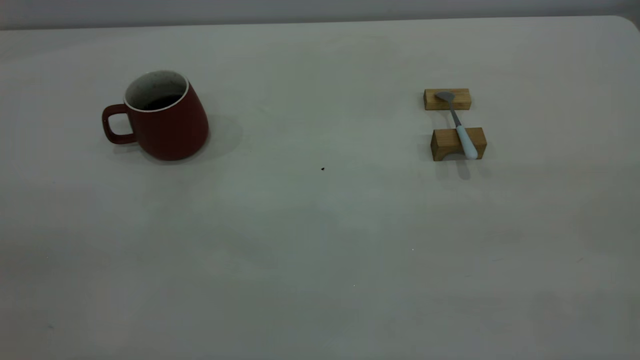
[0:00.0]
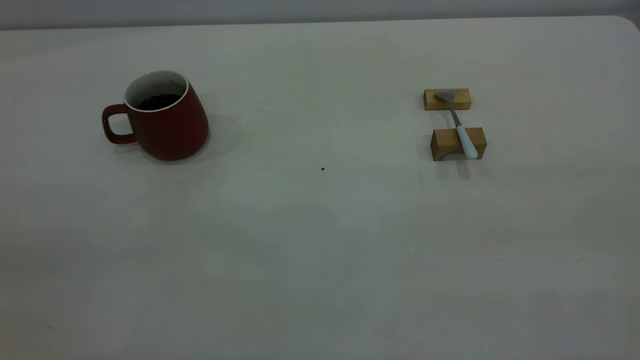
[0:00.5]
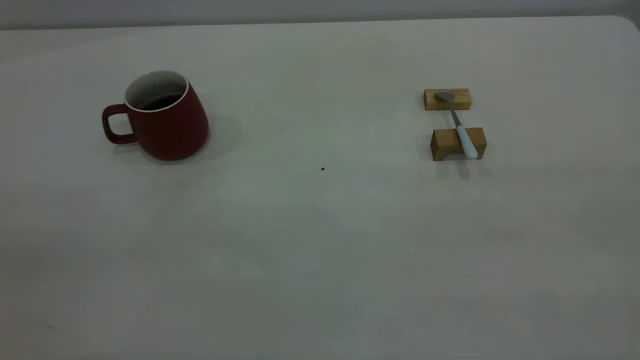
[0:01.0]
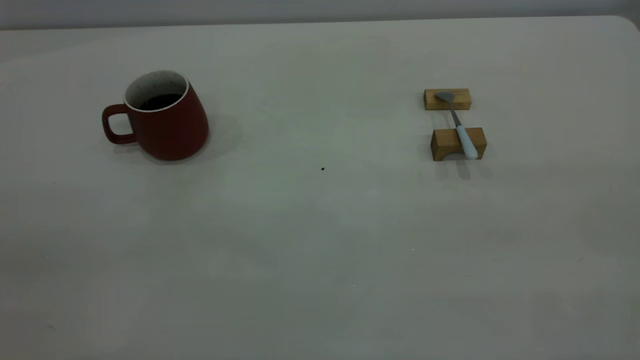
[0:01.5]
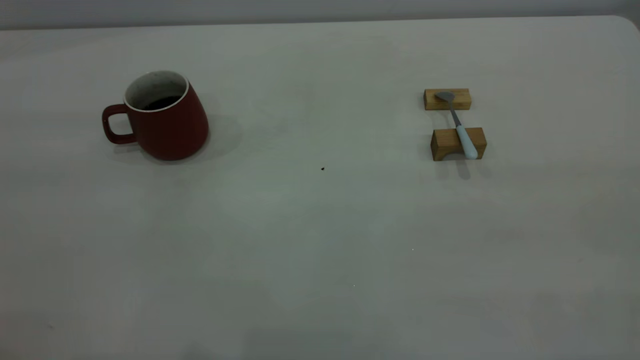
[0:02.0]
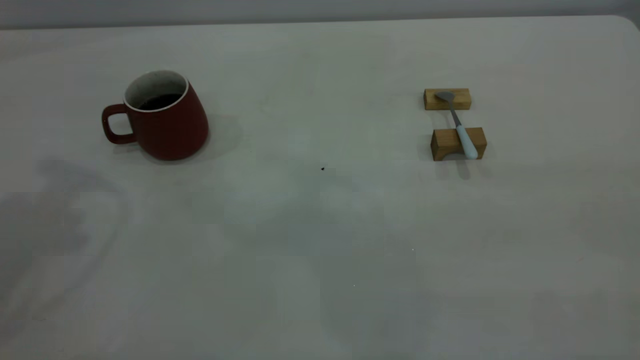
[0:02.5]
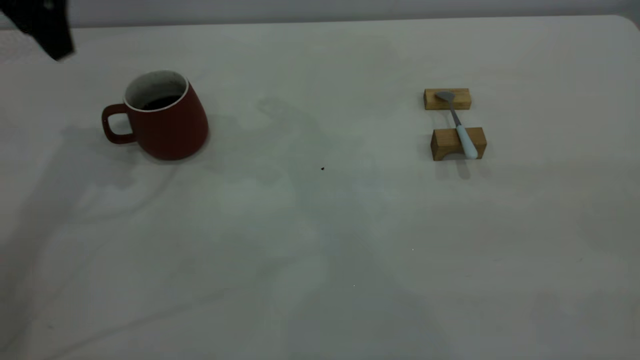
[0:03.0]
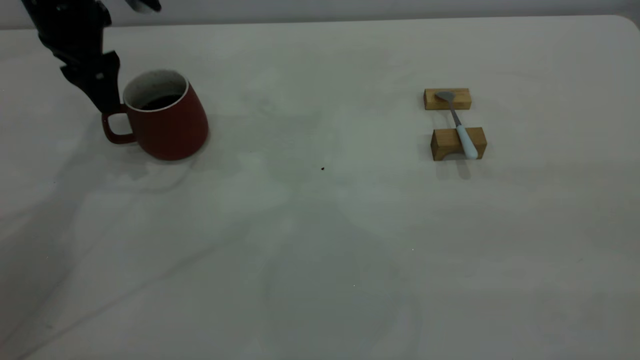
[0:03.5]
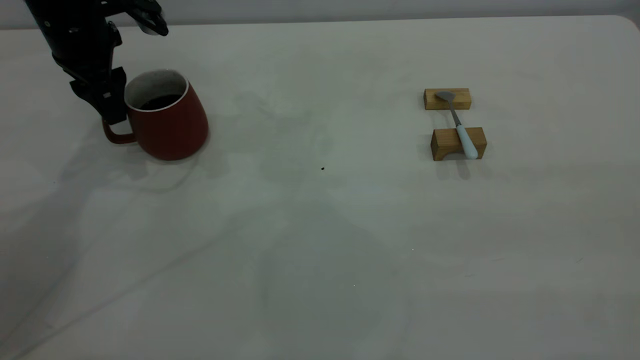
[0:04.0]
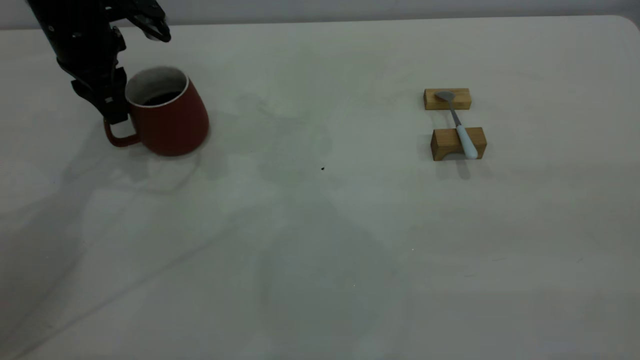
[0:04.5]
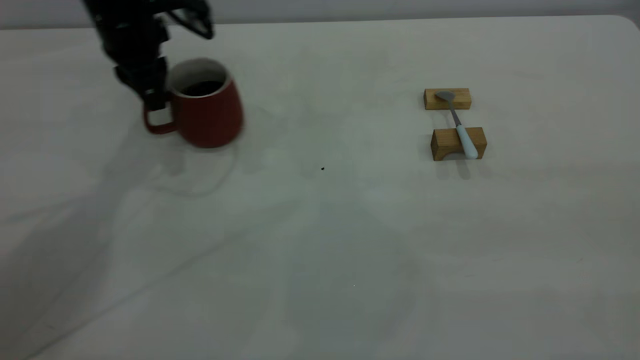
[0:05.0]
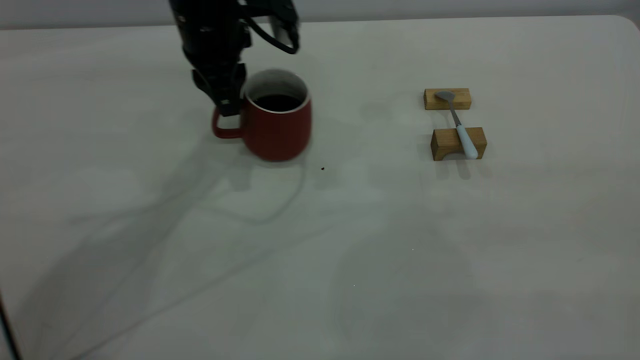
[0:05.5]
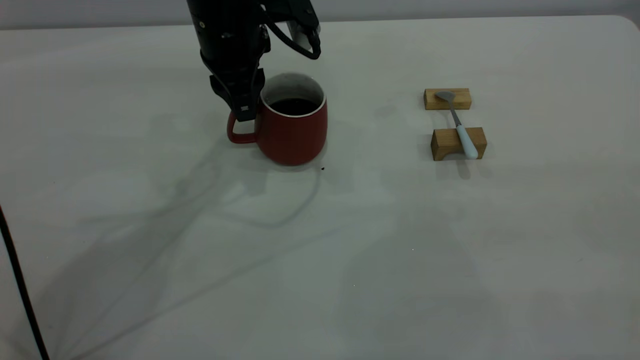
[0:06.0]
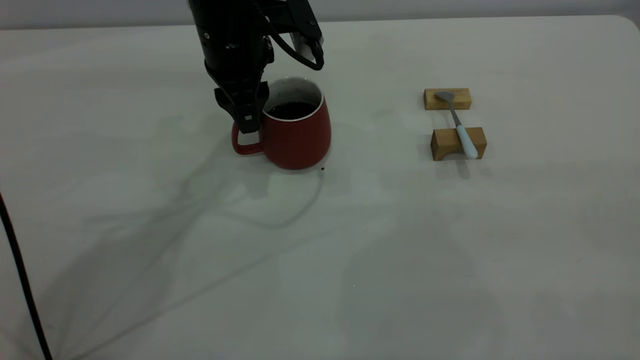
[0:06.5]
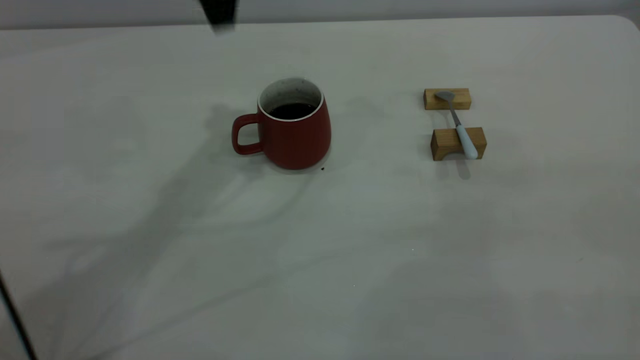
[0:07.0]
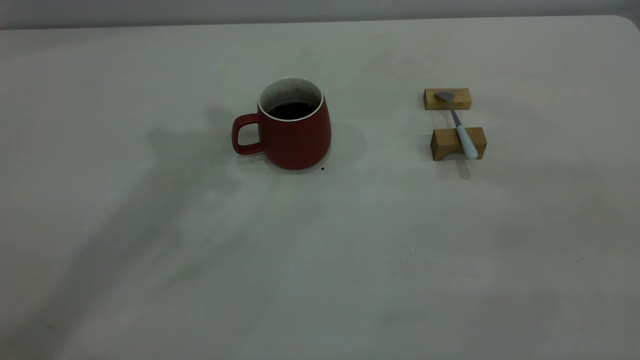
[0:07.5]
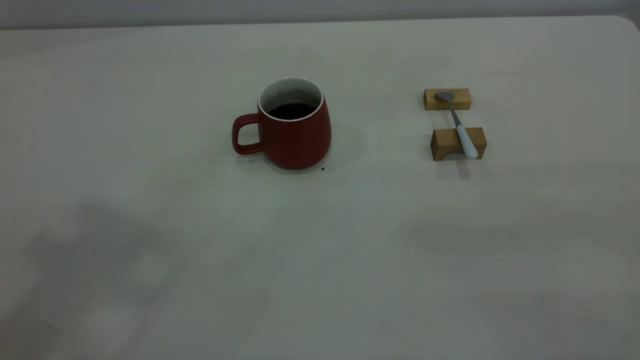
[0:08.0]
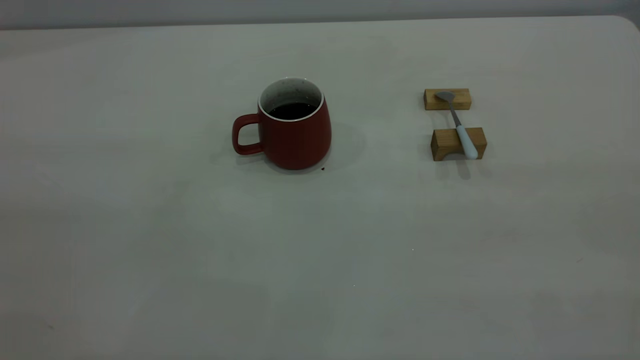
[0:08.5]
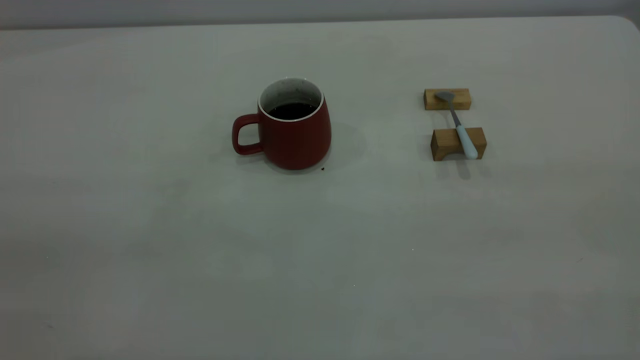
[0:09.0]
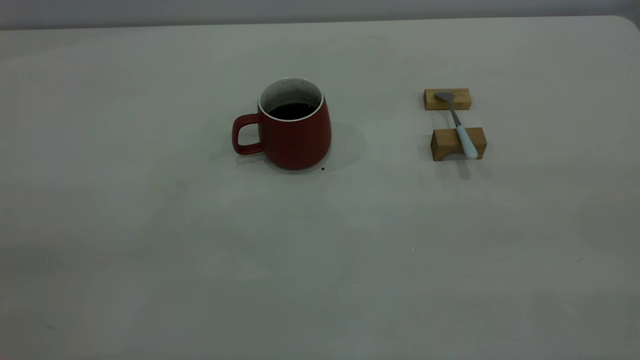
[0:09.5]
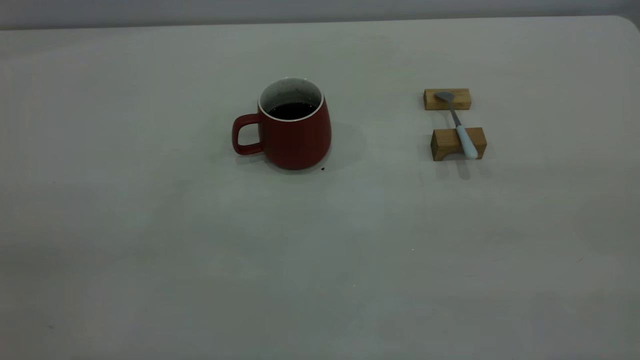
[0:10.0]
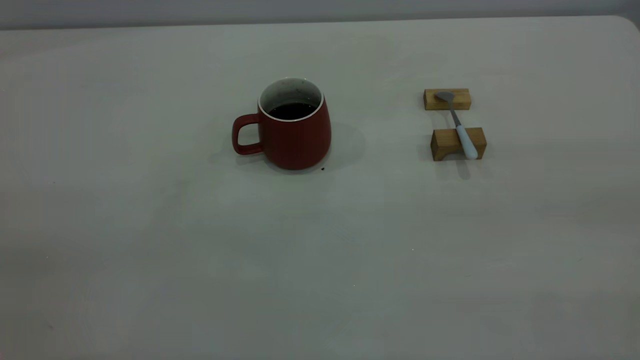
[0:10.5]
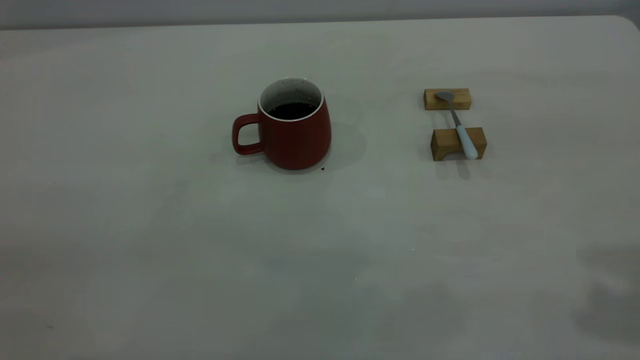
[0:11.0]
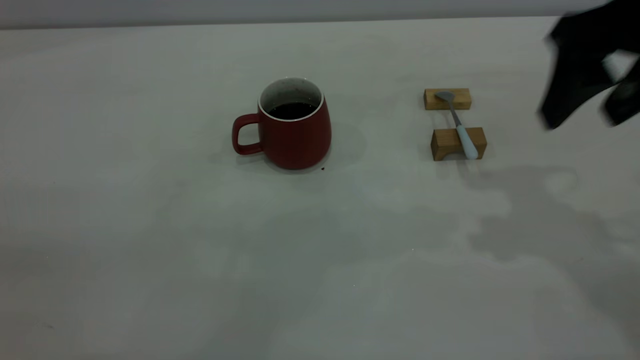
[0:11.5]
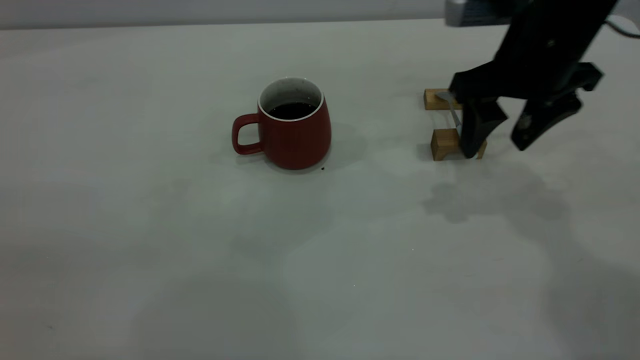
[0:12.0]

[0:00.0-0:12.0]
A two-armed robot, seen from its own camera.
Step, 0:00.0 to 0:06.5: Move the cup with coffee to the center of view.
0:02.0 to 0:04.0: The left gripper goes approximately 40 cm forward and downward.
0:04.0 to 0:06.0: The left gripper heads to the right, covering roughly 15 cm, and closes.
0:06.0 to 0:08.0: The left gripper goes approximately 40 cm upward and backward, and opens, then closes once more.
0:10.0 to 0:12.0: The right gripper moves forward and downward, roughly 40 cm.

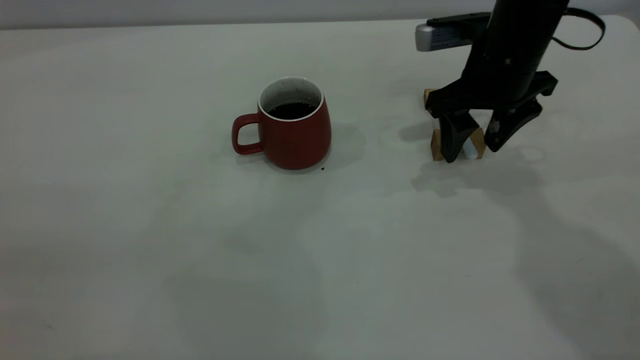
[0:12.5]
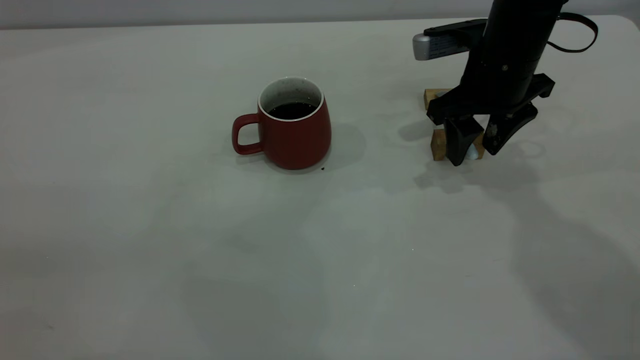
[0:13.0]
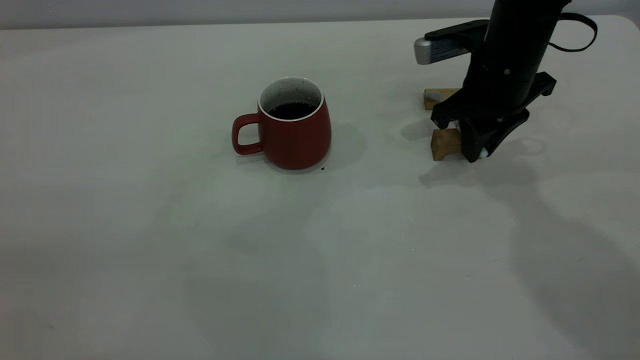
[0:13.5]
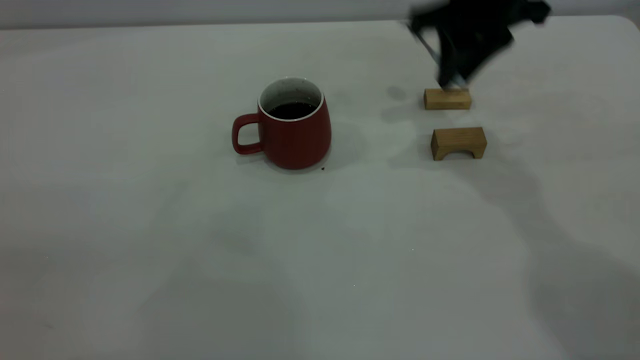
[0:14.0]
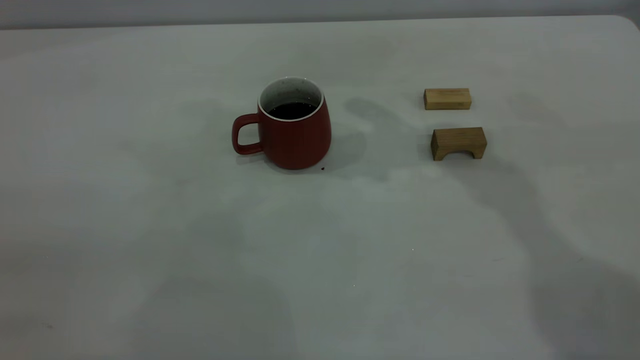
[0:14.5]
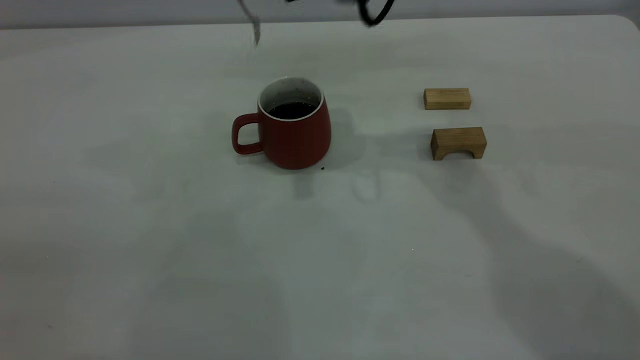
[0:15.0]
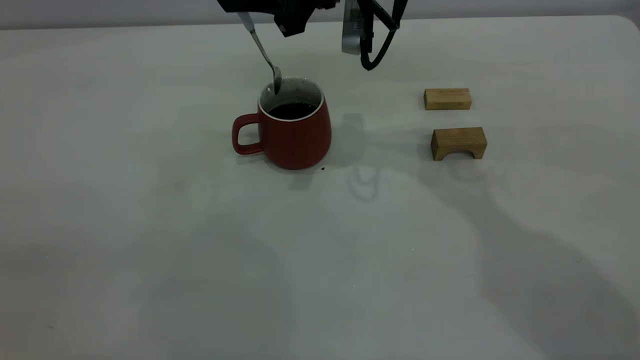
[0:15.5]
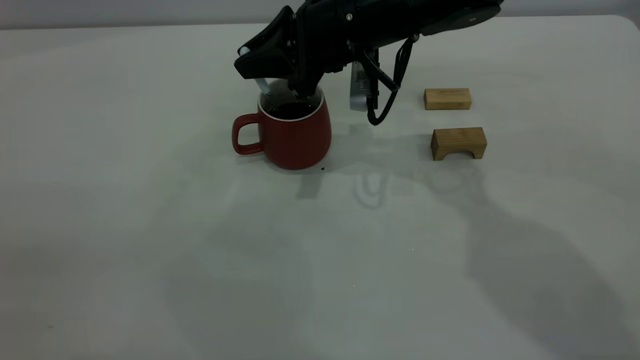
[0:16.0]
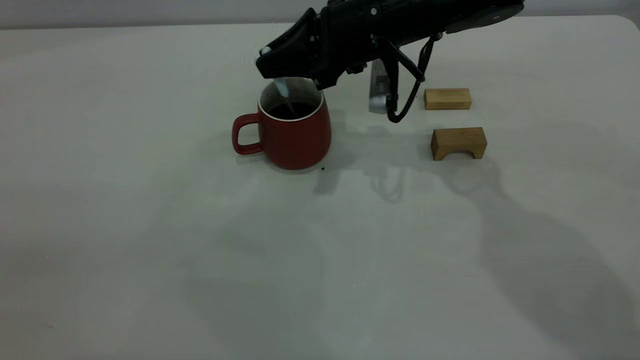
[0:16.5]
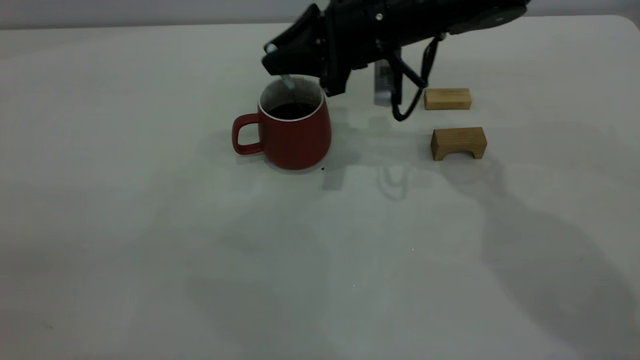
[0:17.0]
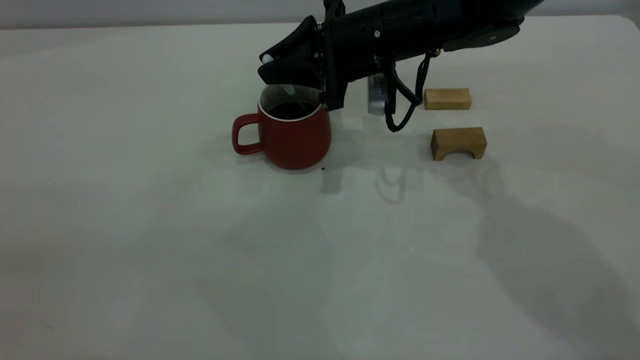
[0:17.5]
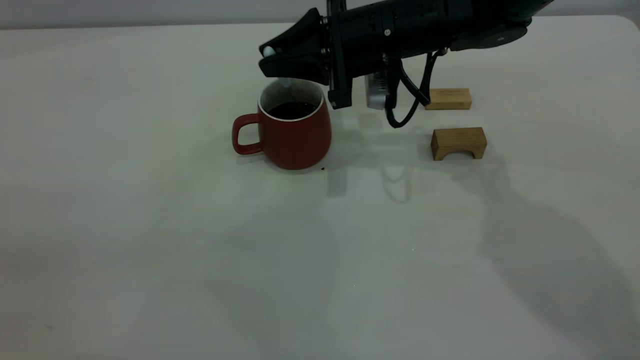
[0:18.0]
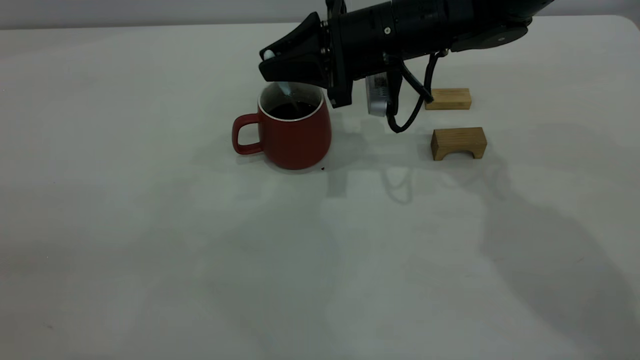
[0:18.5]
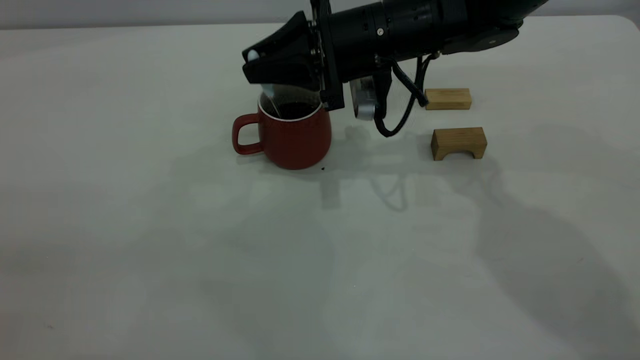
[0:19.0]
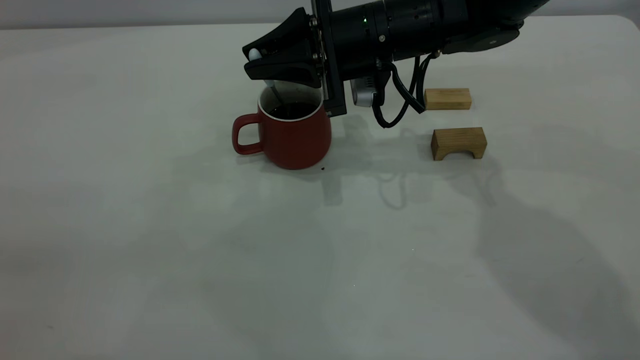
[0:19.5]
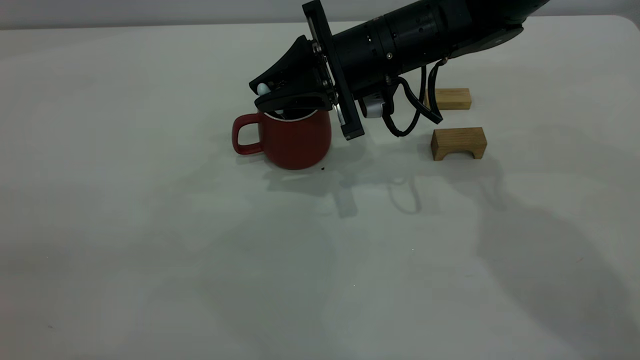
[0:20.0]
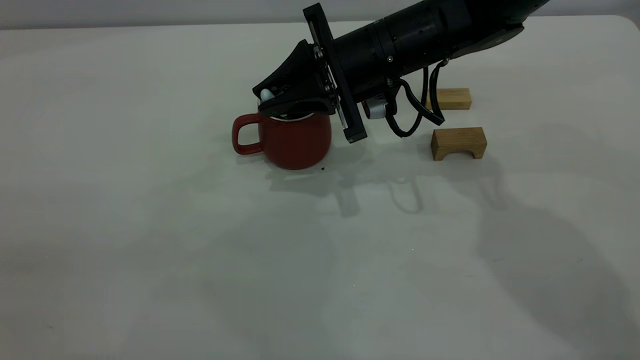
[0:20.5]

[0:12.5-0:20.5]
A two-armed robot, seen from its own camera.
0:12.5 to 0:14.5: The right gripper goes about 20 cm upward and to the left, and closes its fingers.
0:14.5 to 0:16.5: The right gripper moves downward, about 15 cm.
